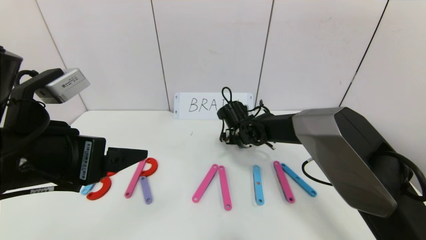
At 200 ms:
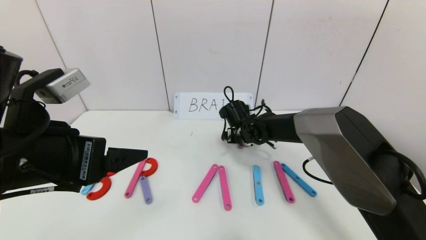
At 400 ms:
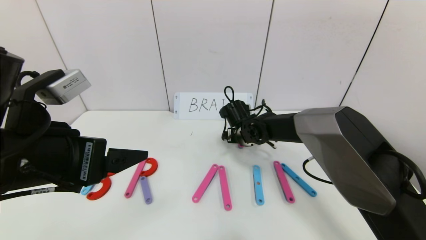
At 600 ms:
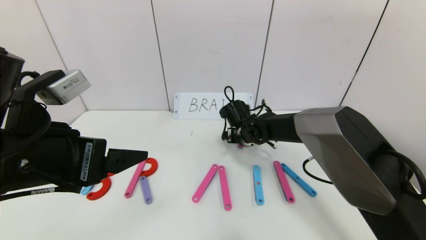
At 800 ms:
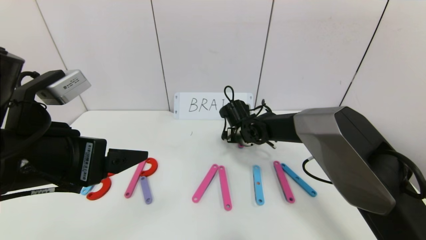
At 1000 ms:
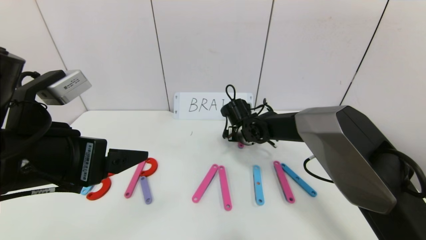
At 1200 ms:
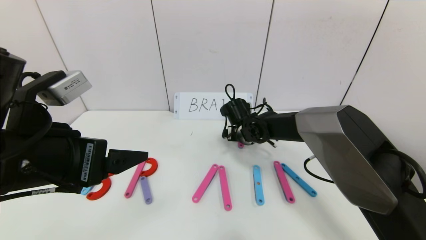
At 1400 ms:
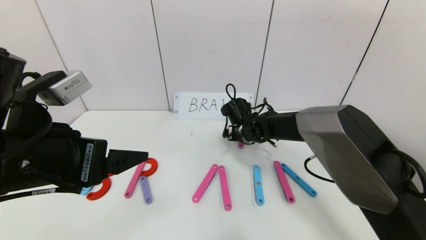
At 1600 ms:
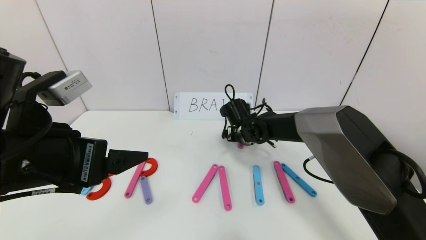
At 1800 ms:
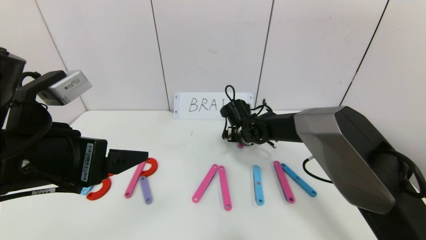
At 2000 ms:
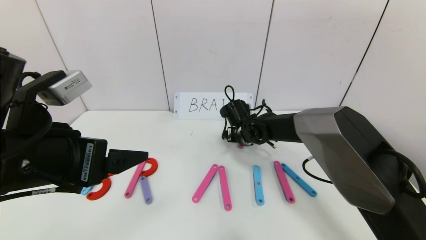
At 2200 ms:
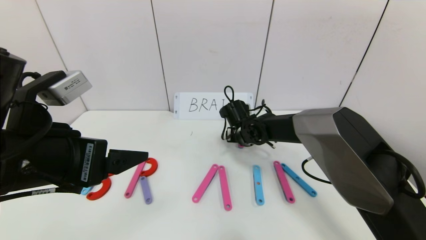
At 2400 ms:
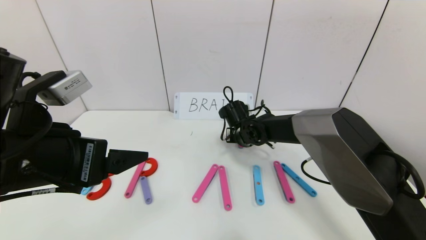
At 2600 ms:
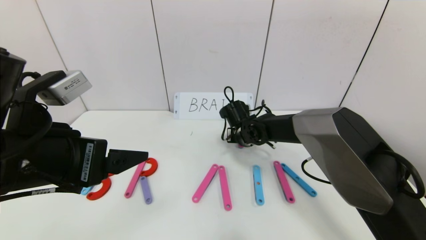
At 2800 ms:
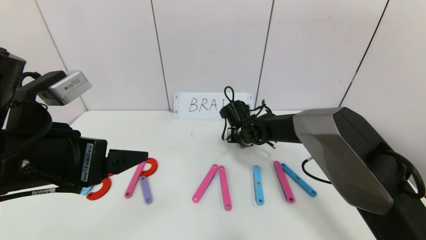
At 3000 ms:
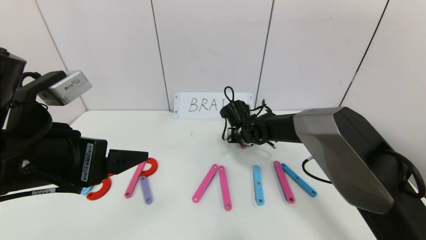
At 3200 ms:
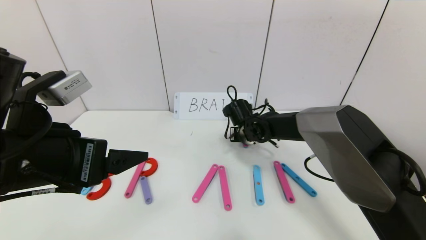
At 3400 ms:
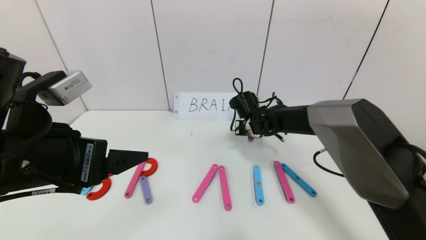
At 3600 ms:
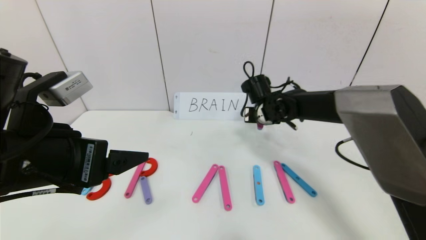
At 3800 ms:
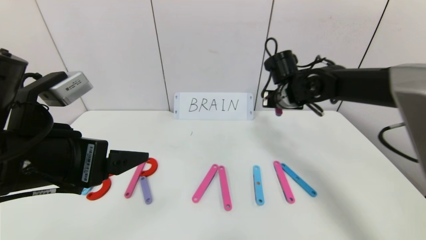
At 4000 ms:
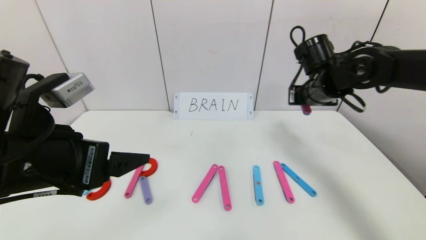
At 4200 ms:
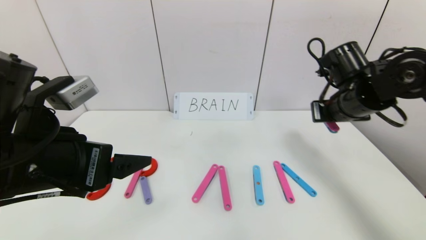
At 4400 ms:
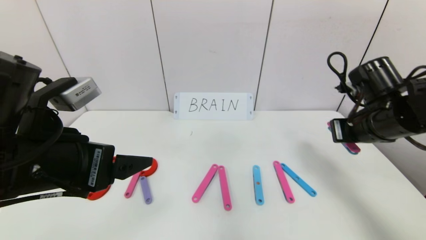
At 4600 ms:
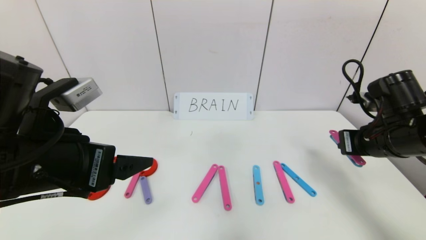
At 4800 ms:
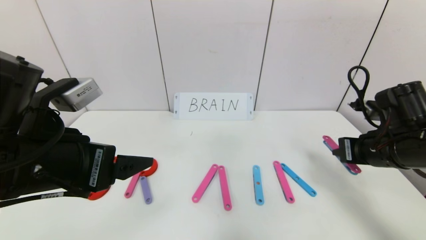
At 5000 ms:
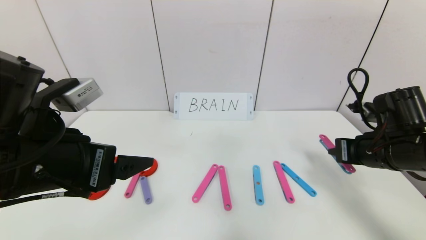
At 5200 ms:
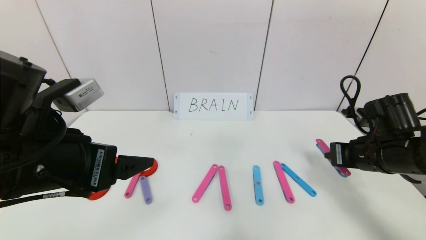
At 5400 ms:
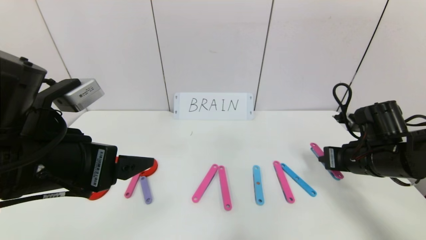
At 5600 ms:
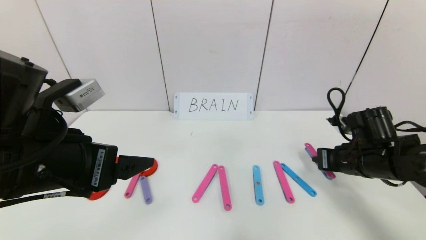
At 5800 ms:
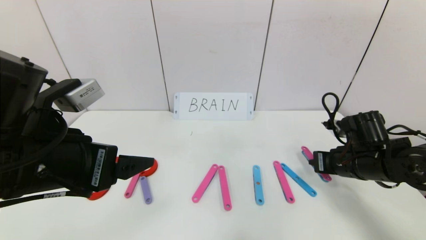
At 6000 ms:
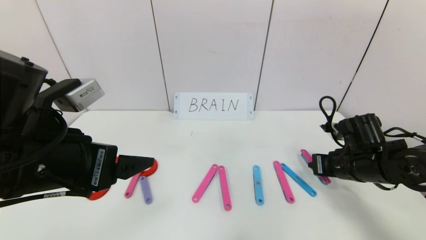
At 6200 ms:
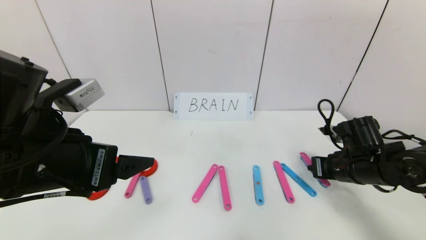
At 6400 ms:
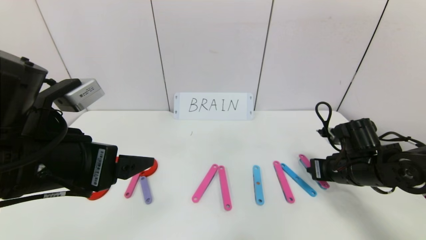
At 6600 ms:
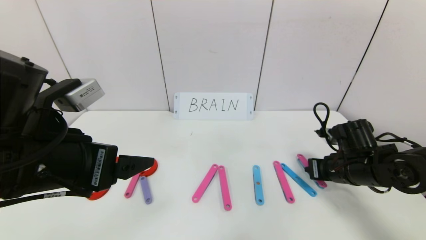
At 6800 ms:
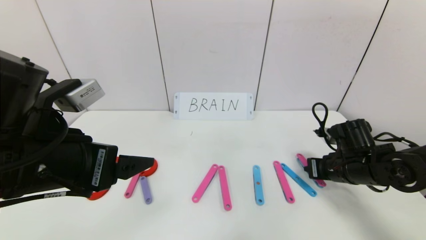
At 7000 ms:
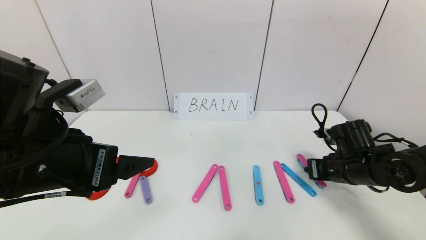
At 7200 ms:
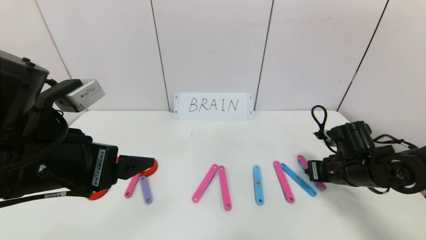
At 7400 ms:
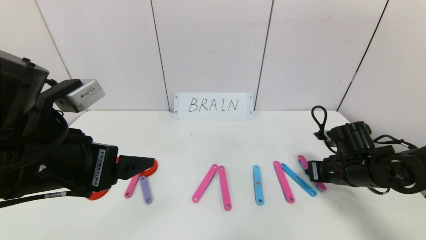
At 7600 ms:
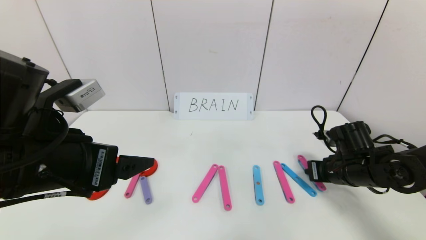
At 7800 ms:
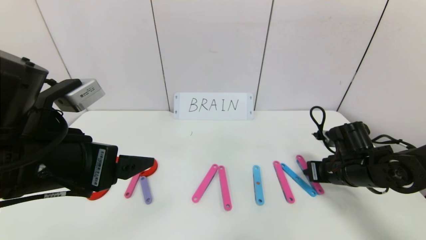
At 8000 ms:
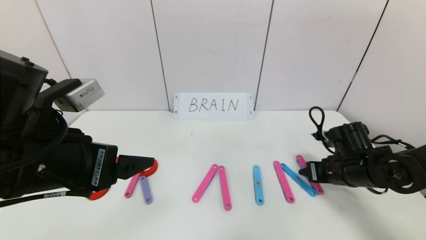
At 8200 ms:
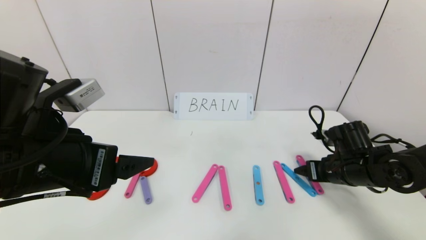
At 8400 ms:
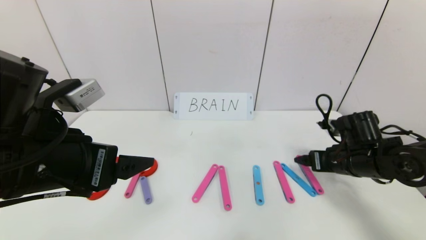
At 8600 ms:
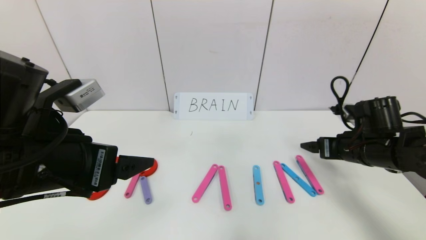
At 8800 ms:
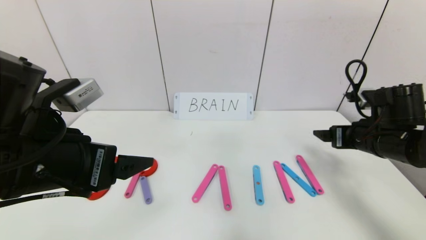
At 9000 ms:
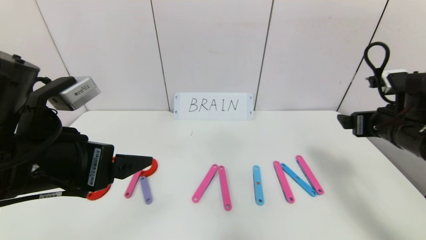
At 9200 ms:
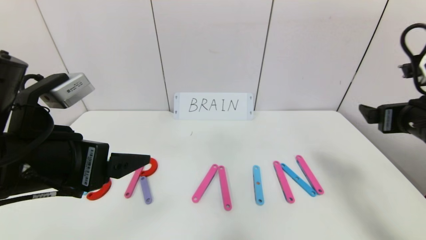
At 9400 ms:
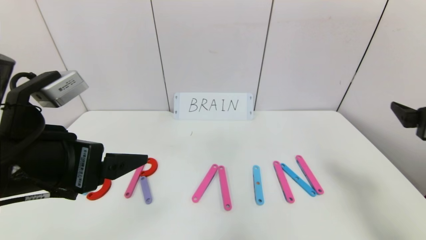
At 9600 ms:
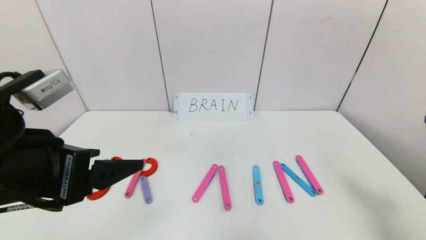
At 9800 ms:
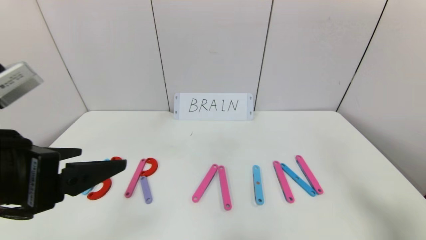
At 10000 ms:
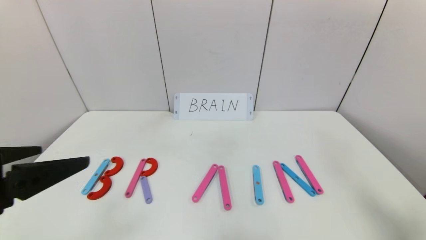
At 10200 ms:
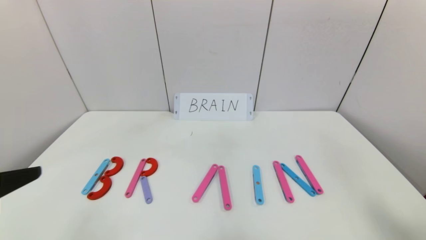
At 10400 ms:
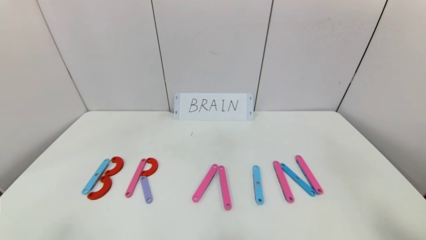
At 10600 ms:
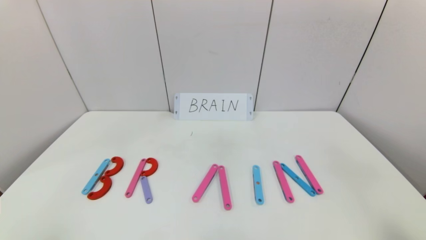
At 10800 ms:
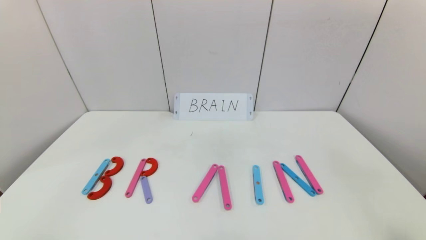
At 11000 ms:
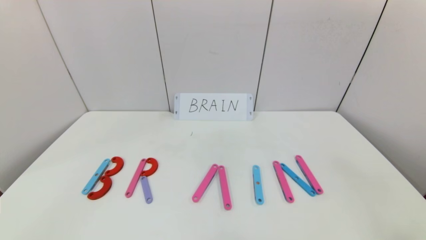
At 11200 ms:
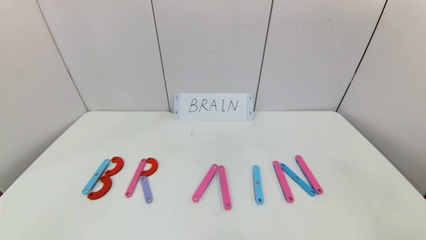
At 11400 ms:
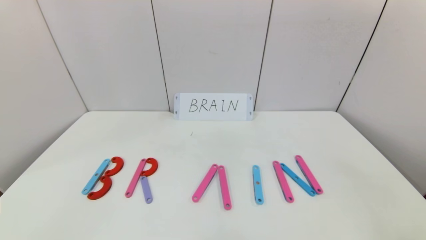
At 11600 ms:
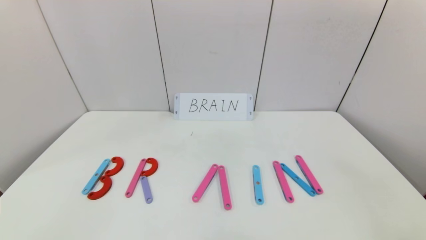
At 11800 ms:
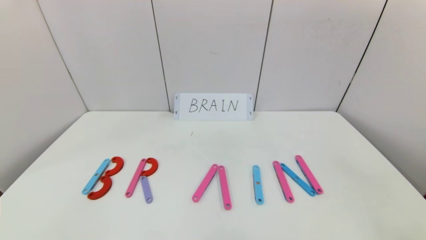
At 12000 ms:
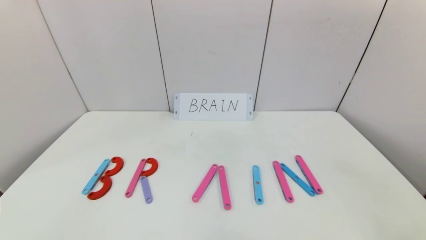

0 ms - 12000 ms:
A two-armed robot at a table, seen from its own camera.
Task of the whole recording: rearrange the word baai as brain.
Step, 0 ms - 8400 ms: Place the character N after character I.
0 ms - 1600 ms: Both grippers stay put.
1600 ms - 3000 ms: The right gripper closes.
3000 ms - 4400 ms: The right gripper heads to the right, backward and upward, covering roughly 30 cm.
4400 ms - 6000 ms: The right gripper shifts roughly 10 cm downward.
6000 ms - 7600 ms: The grippers make only small movements.
7600 ms - 9000 ms: The right gripper is displaced upward by about 10 cm, and opens up.
9000 ms - 10400 ms: The right gripper travels backward by roughly 25 cm, while the left gripper travels backward and to the left by some 15 cm.

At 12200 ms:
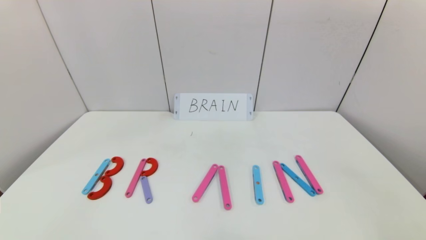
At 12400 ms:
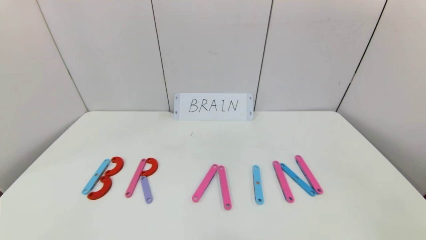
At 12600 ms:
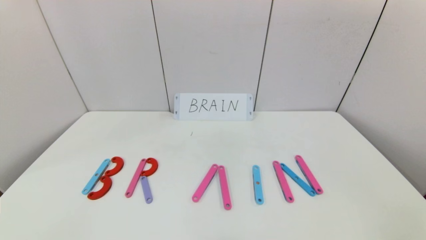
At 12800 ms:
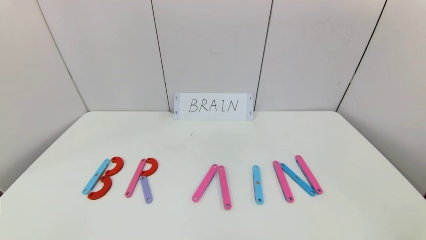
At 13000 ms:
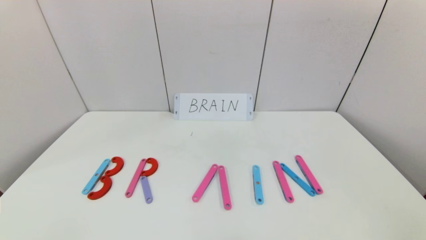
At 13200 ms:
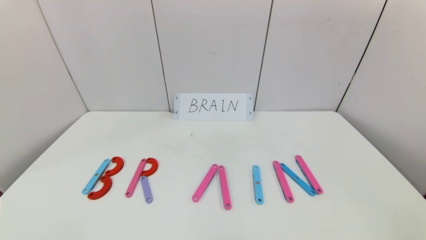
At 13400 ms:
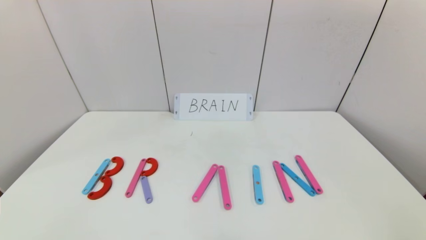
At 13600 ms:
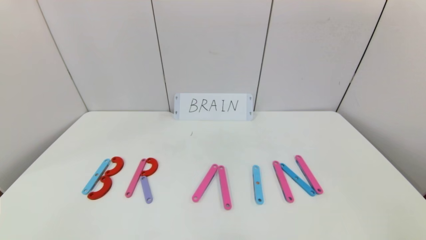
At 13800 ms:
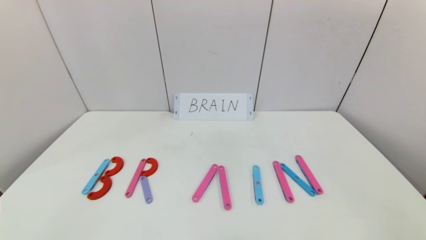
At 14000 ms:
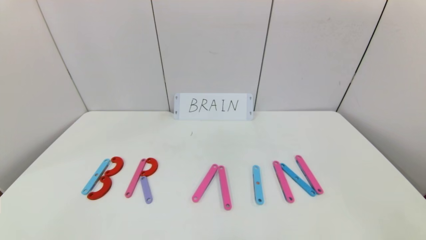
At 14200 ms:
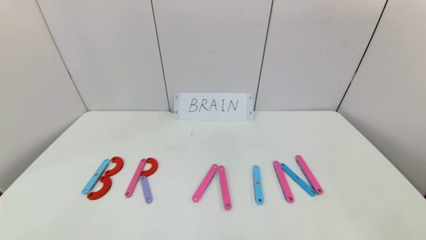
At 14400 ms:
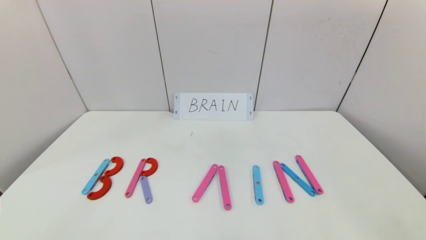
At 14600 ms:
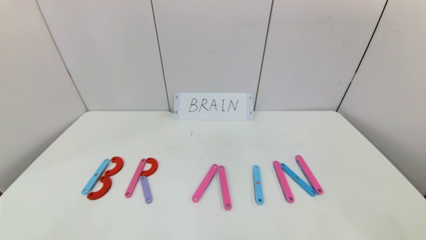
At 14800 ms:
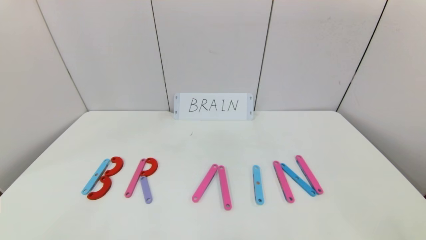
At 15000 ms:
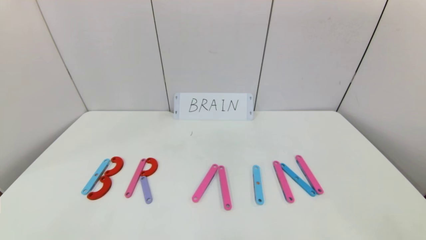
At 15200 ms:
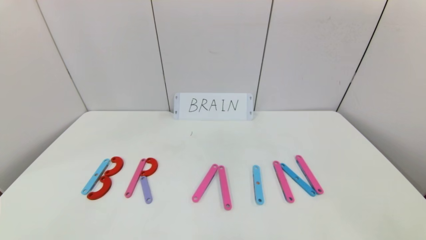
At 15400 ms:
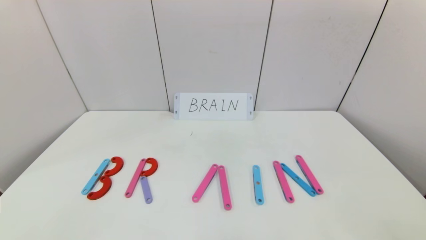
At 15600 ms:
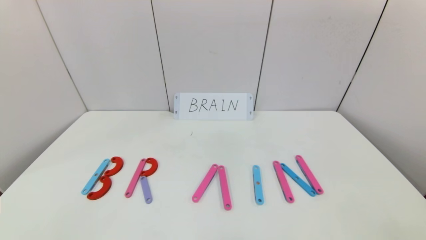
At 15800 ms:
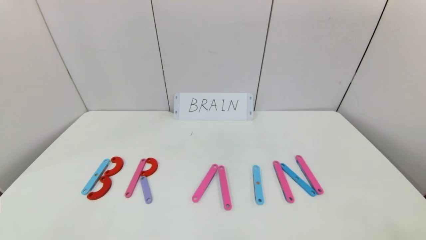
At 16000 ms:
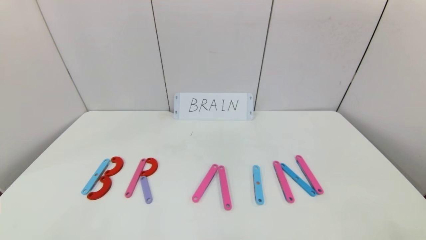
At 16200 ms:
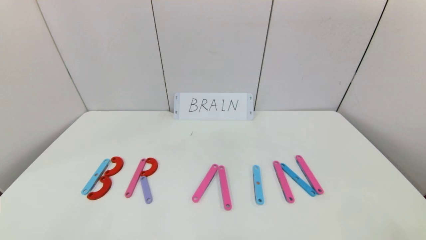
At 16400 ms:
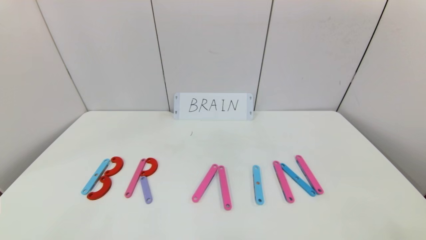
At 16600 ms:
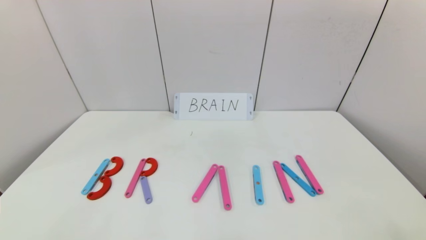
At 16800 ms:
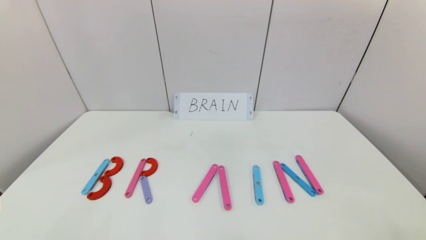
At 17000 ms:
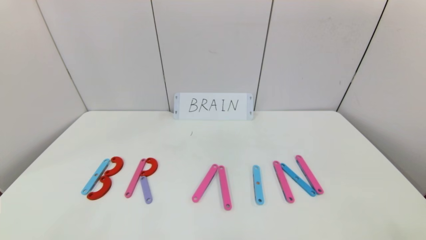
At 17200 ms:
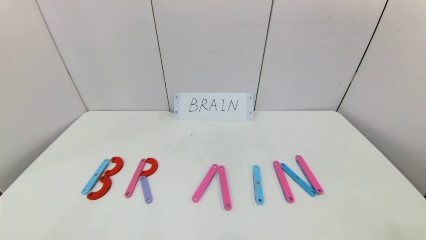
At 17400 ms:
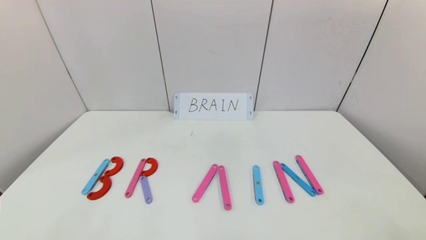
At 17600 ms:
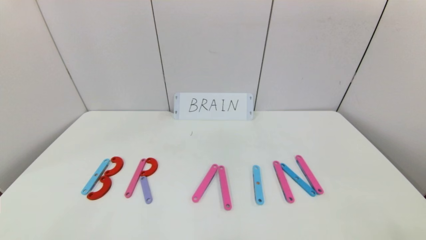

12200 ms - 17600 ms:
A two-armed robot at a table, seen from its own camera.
Task of the whole recording: rearrange the word baai as brain.
16200 ms - 17600 ms: Both grippers stay about where they are.
